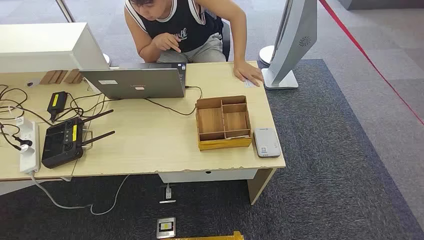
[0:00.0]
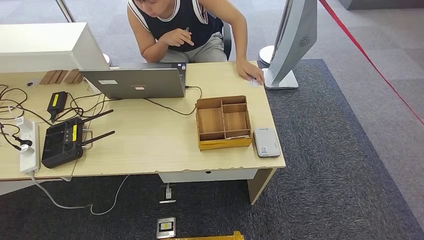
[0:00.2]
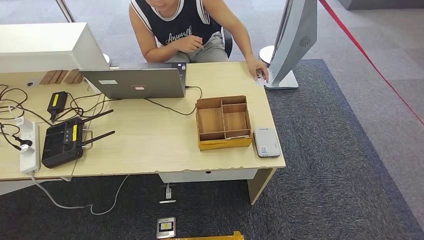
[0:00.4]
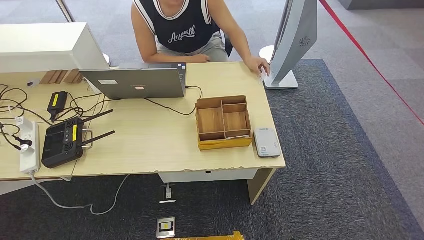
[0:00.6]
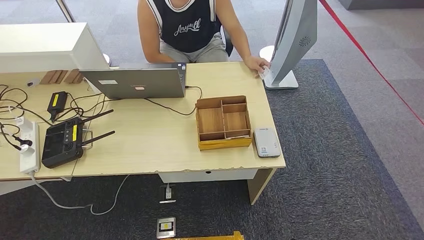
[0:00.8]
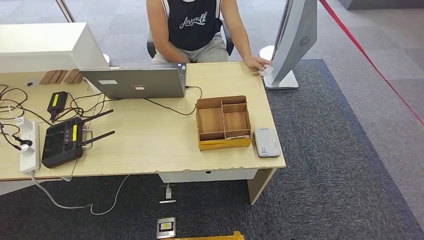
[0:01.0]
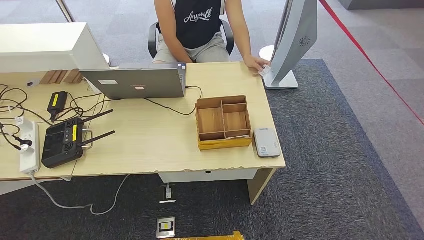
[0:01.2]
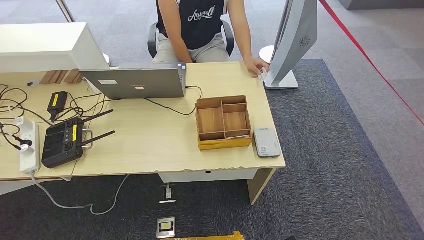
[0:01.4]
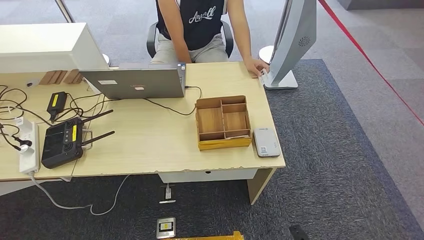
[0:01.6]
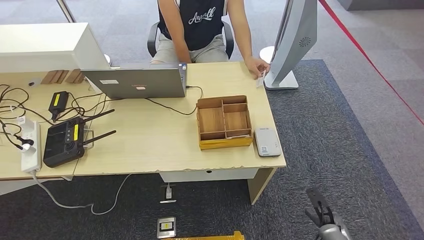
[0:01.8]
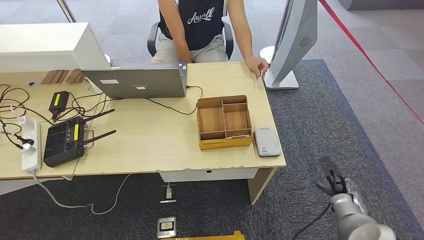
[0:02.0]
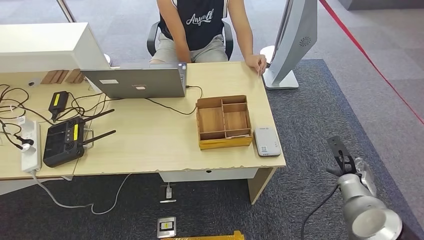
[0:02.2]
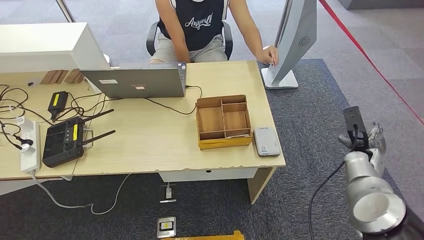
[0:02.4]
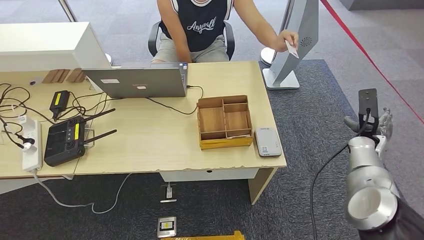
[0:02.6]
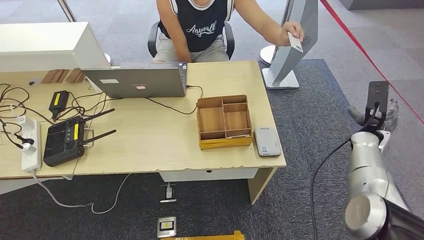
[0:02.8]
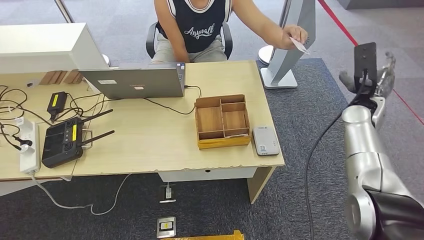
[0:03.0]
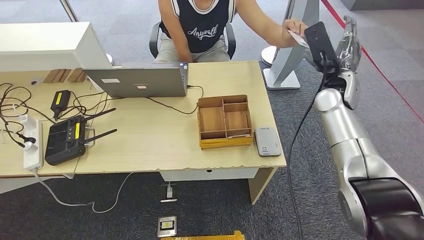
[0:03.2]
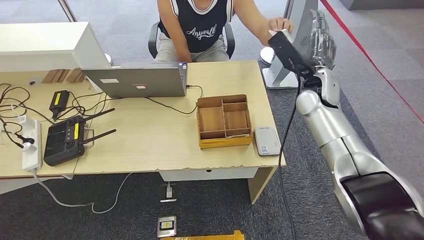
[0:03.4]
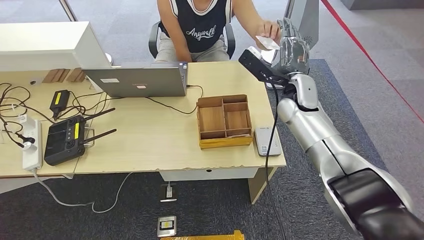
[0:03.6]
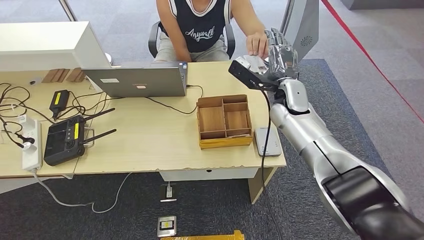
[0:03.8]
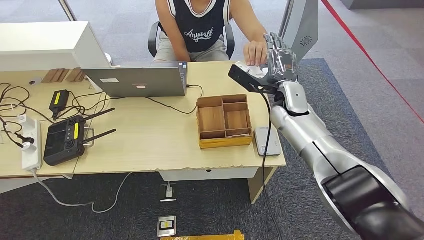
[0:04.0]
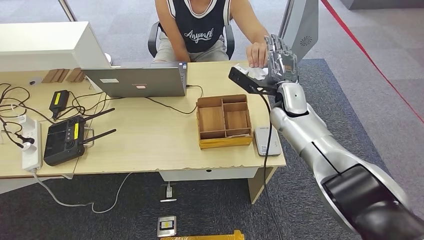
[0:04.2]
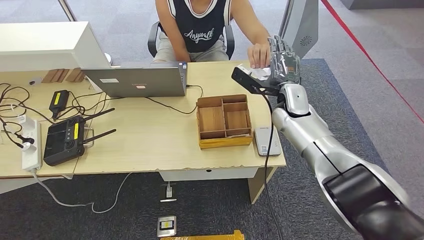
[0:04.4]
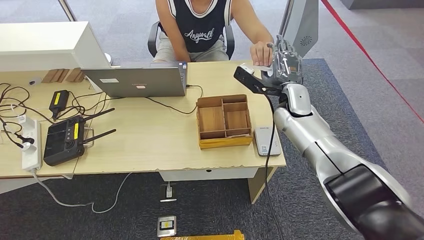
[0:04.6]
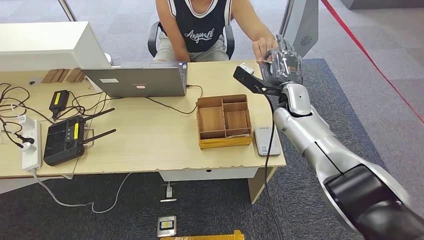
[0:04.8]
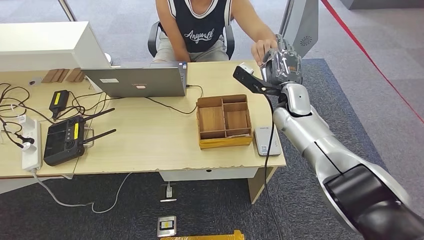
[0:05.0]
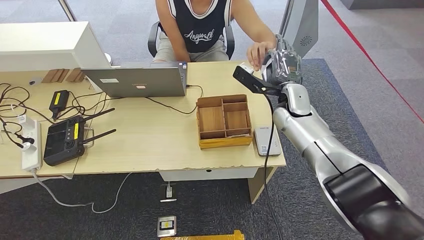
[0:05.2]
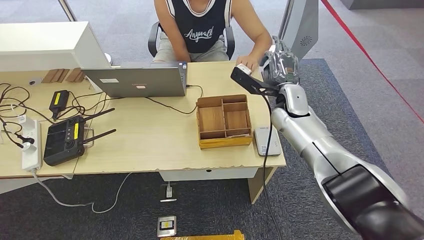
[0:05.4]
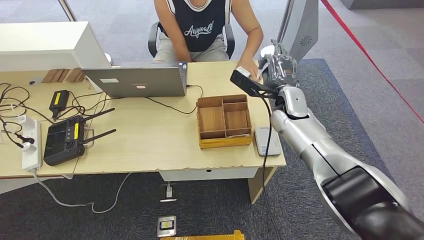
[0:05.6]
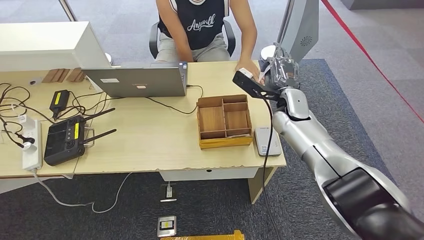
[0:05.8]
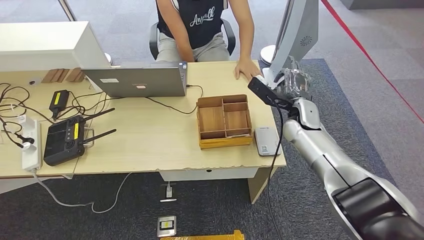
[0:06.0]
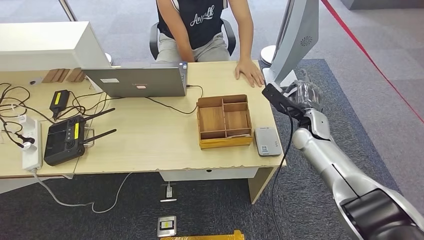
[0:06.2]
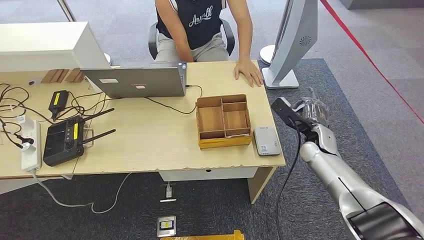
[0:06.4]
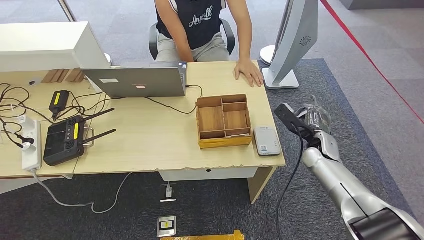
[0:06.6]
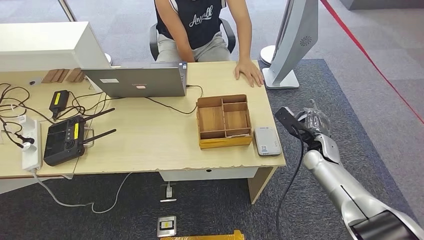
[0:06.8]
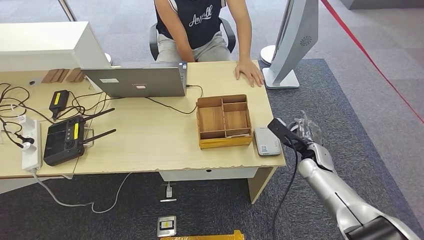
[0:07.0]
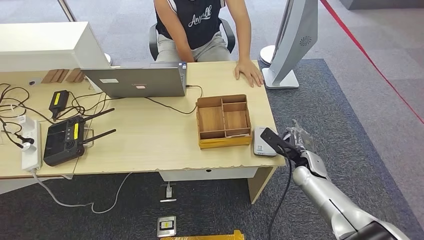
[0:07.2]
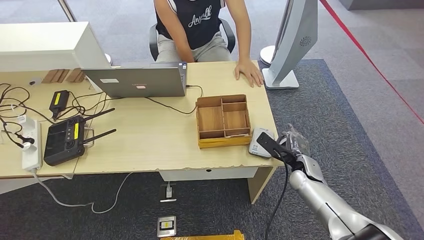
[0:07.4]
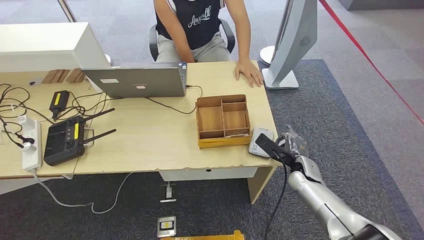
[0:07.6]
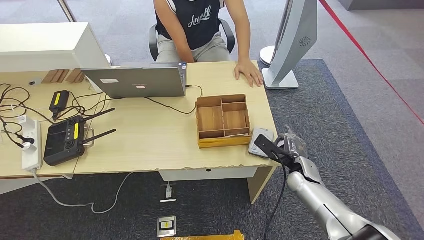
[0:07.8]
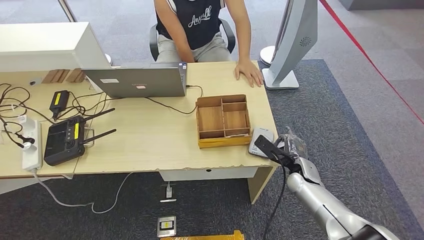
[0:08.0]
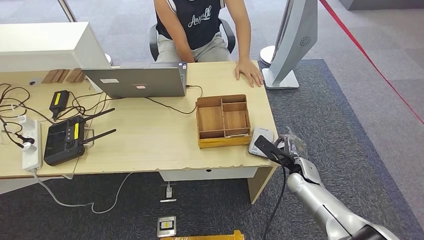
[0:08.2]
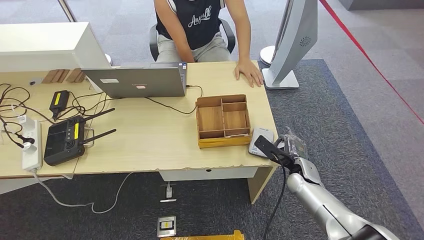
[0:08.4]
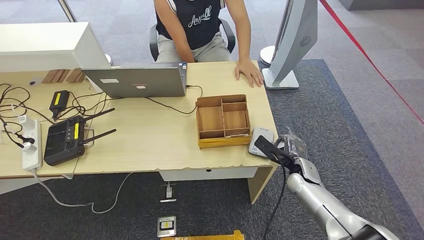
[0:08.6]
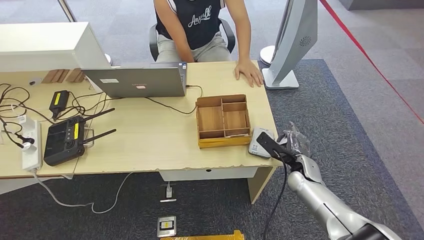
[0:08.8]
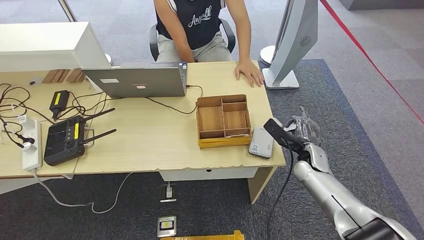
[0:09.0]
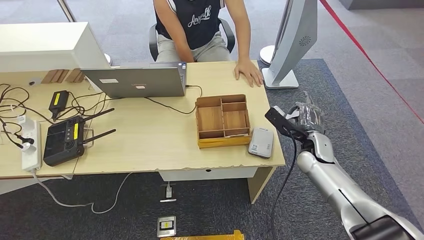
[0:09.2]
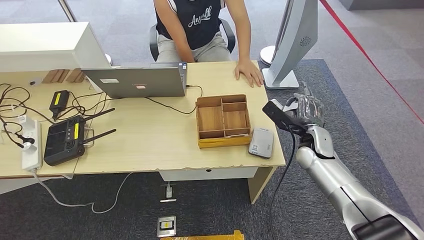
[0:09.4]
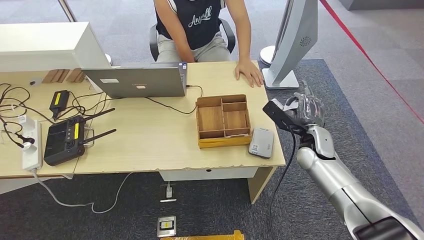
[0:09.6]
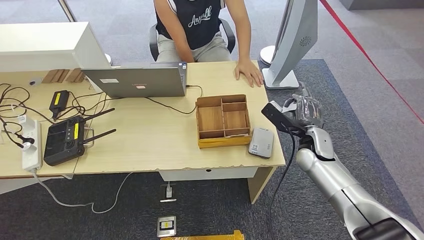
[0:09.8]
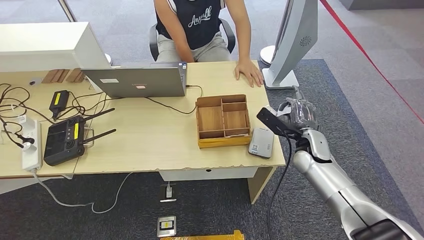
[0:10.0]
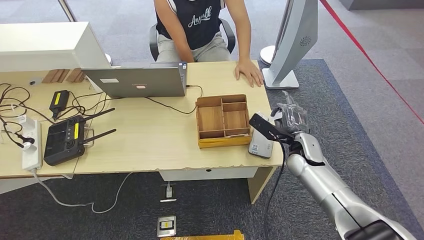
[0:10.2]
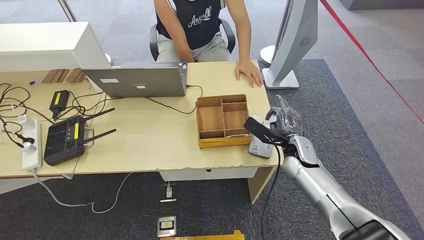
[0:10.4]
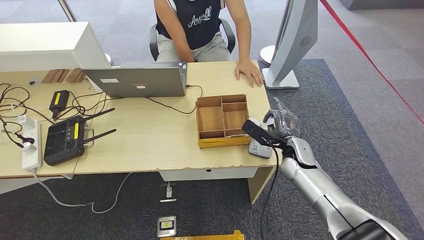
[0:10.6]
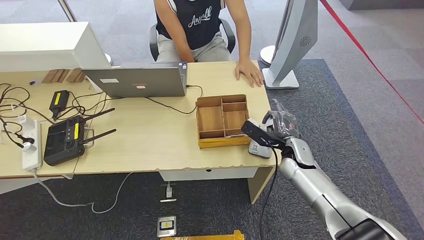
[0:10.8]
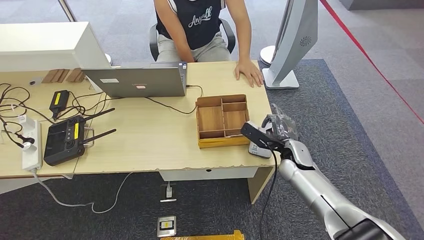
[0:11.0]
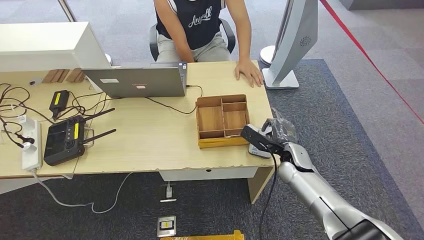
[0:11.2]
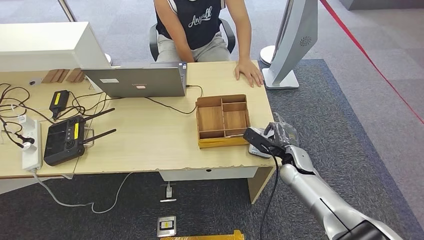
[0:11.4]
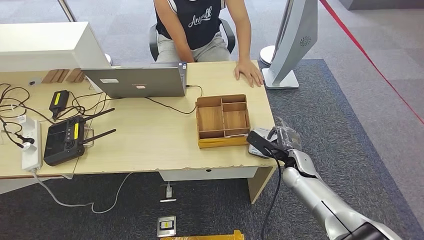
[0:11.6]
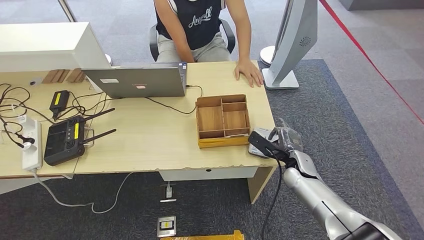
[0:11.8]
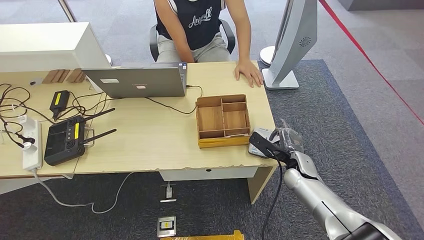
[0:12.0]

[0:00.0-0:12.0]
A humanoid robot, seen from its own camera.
Step, 0:00.0 to 0:06.2: Take the ID card from the person's hand.
Step, 0:06.4 to 0:07.8: Place the ID card on the card reader.
0:01.6 to 0:03.0: The right hand heads upward and forward, covering about 50 cm.
0:04.4 to 0:06.0: The right hand moves some 5 cm.
0:06.0 to 0:07.6: The right hand goes approximately 20 cm downward and backward.
0:07.6 to 0:09.0: There are only small adjustments of the hands.
0:09.0 to 0:10.4: The right hand moves approximately 5 cm.
0:10.4 to 0:12.0: The right hand shifts some 5 cm downward.

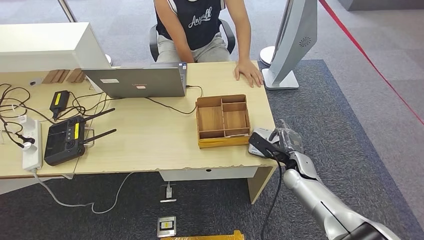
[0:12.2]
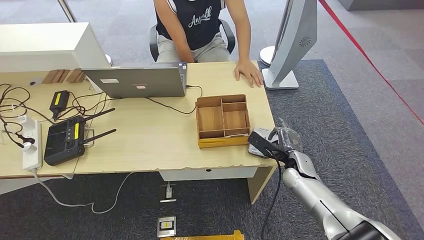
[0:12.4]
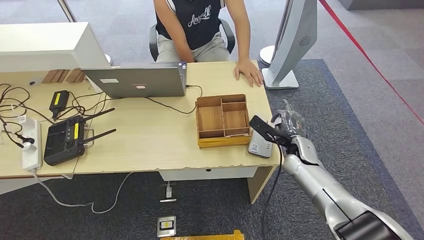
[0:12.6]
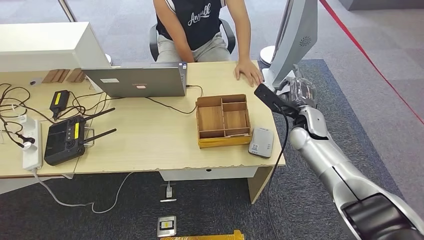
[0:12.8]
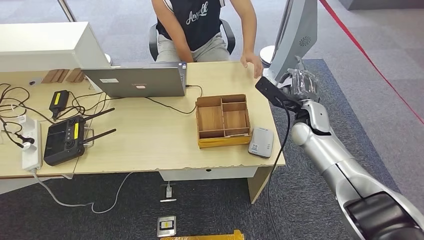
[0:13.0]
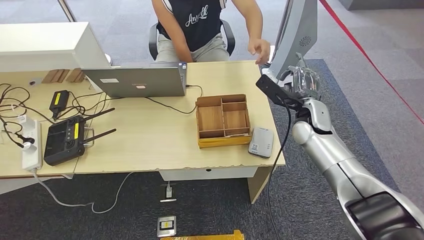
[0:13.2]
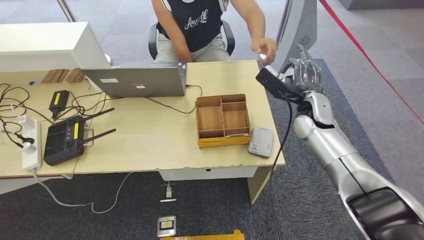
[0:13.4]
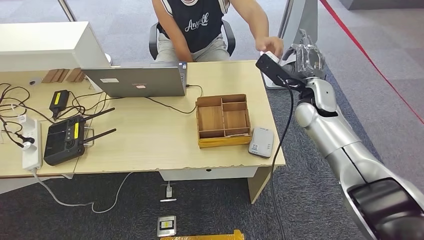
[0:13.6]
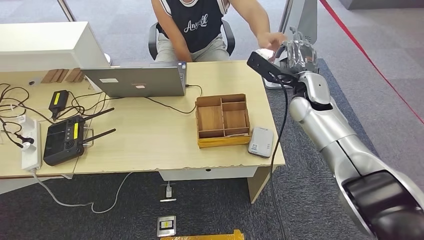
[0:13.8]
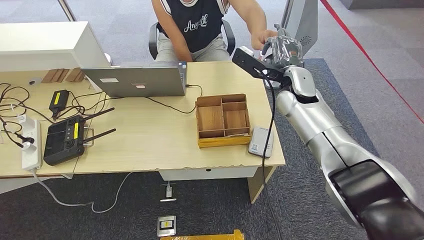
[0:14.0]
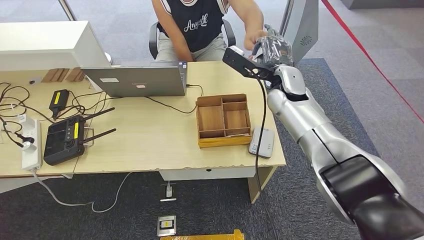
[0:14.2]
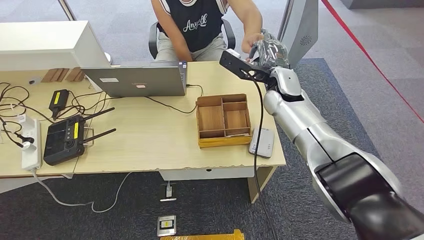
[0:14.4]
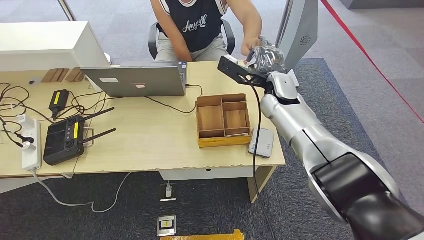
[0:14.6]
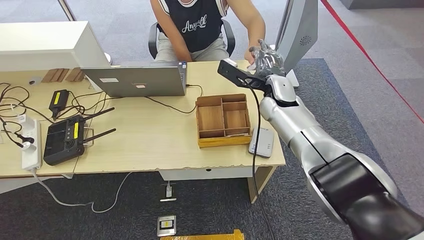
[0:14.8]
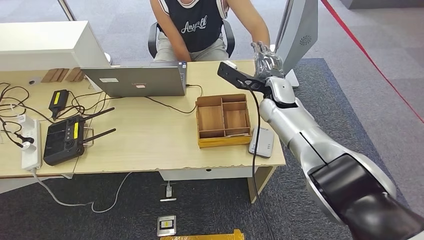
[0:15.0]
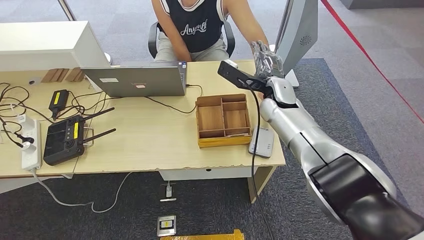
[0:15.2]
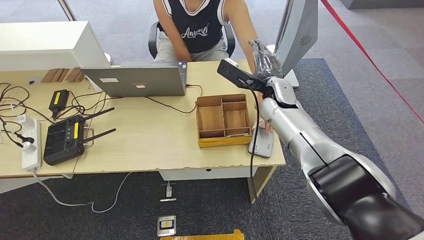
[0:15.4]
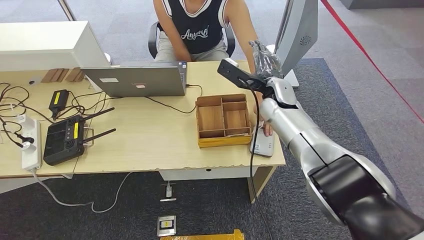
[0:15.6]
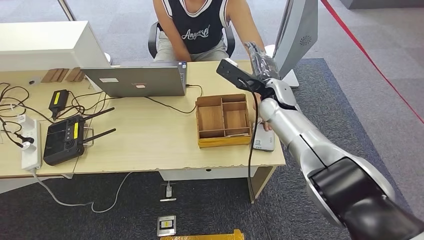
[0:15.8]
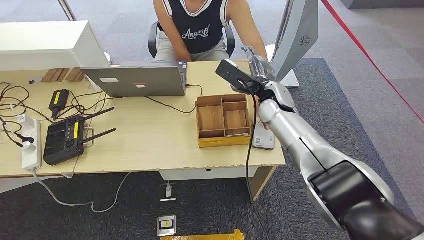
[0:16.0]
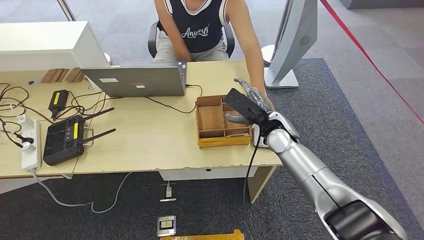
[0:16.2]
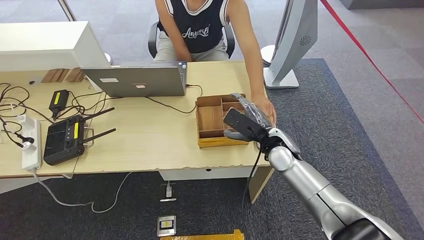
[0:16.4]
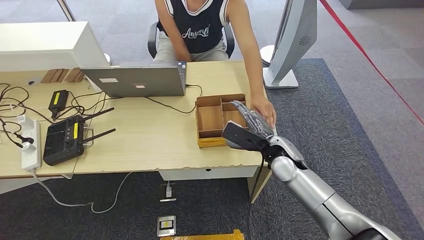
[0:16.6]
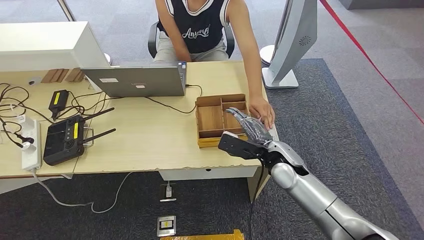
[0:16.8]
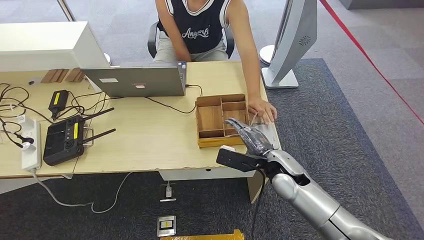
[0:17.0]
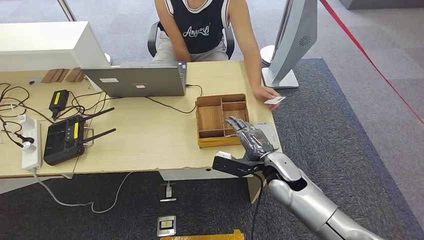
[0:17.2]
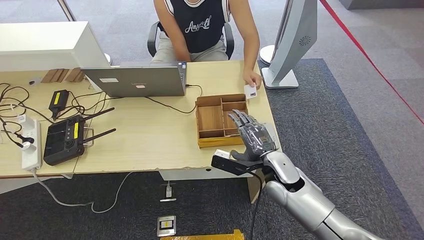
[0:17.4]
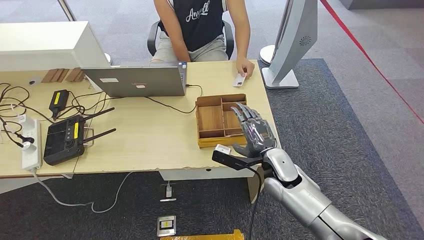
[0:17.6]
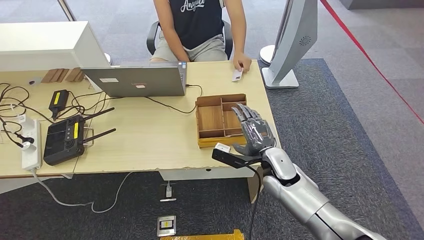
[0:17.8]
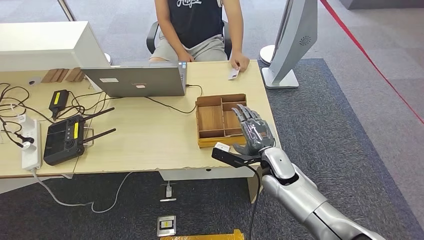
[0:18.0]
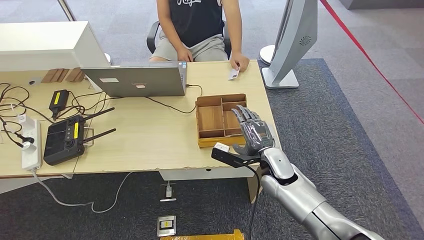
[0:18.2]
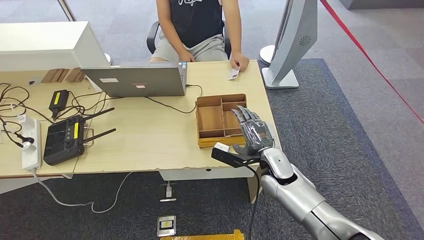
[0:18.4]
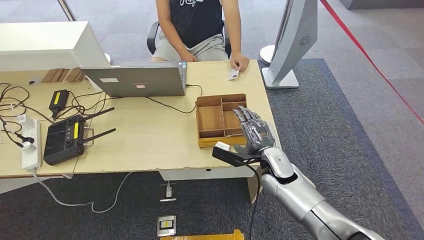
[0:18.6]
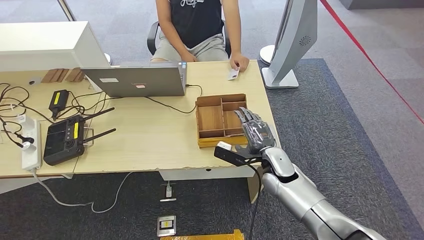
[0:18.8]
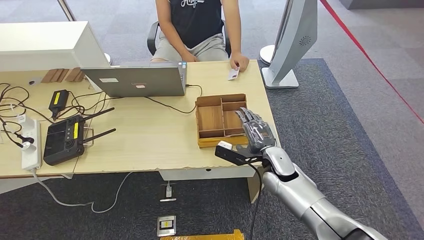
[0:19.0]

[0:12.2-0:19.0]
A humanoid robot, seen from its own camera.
Step, 0:12.2 to 0:14.6: Hand the ID card to the person.
0:12.2 to 0:13.6: The right hand moves upward and forward, about 25 cm.
0:13.6 to 0:15.0: The right hand travels to the left by approximately 10 cm.
0:16.2 to 0:17.6: The right hand is displaced backward and downward by some 15 cm.
0:17.6 to 0:19.0: The hands make only small movements.
